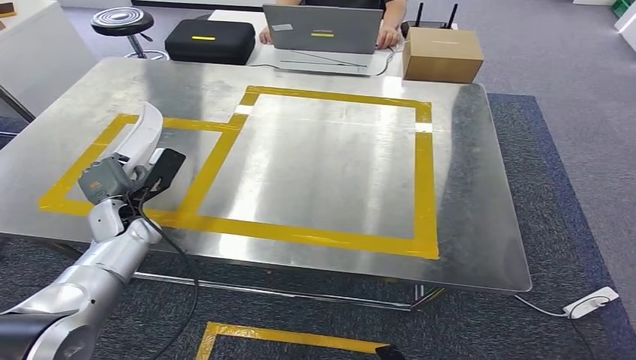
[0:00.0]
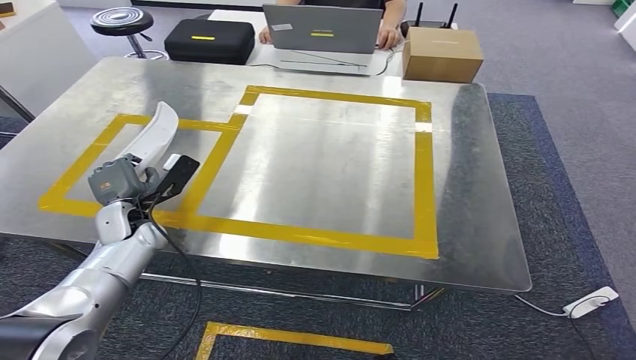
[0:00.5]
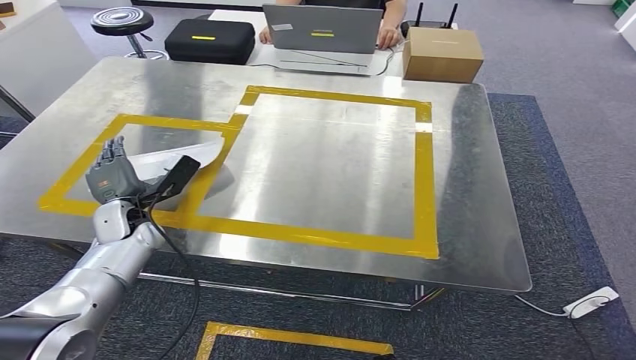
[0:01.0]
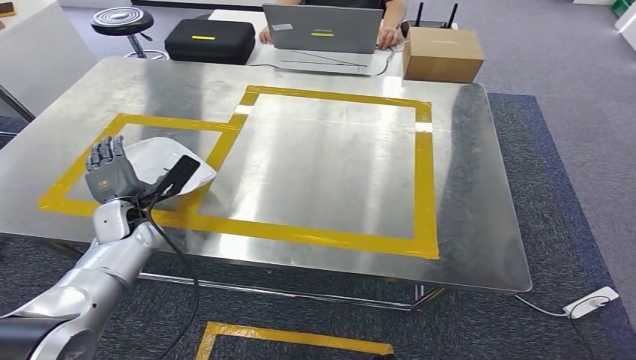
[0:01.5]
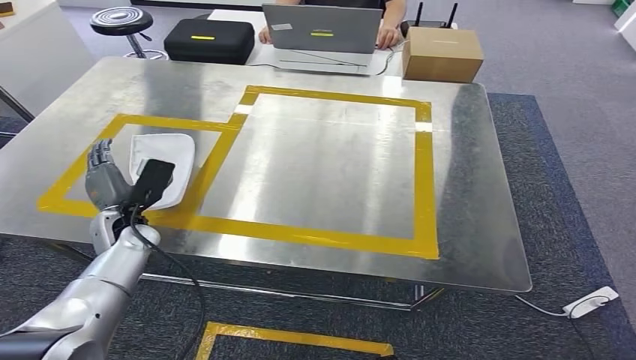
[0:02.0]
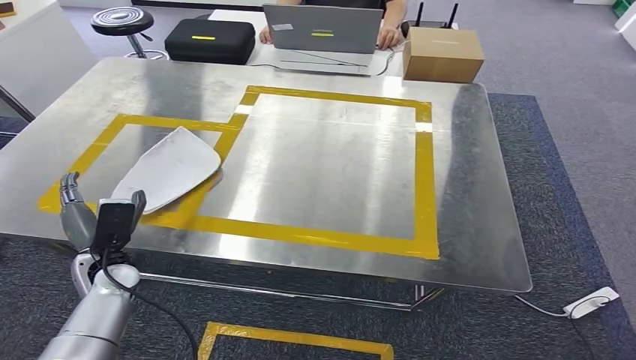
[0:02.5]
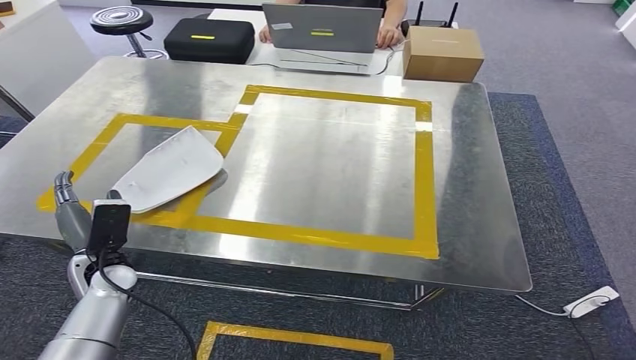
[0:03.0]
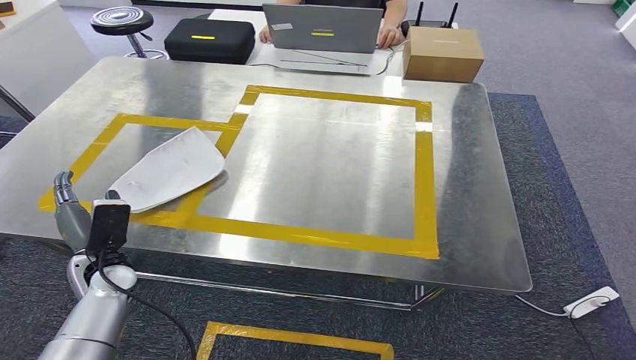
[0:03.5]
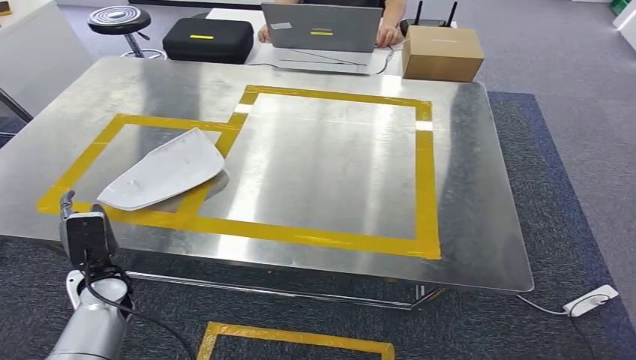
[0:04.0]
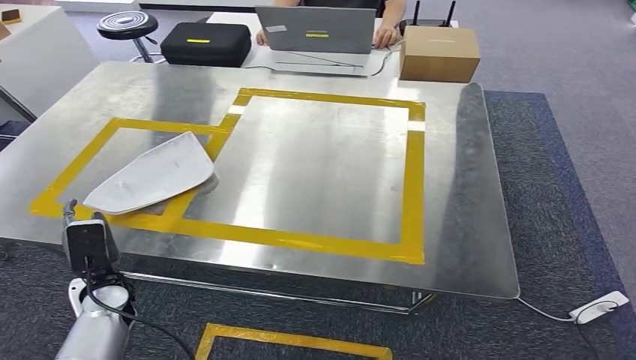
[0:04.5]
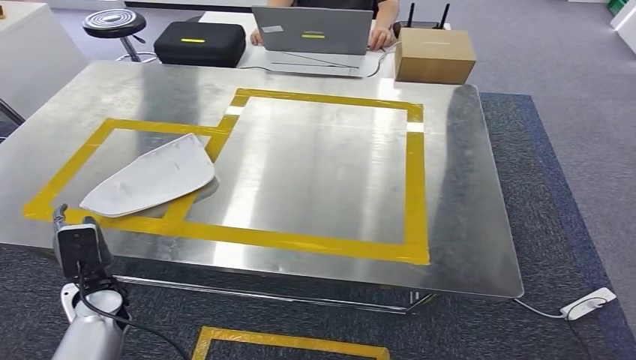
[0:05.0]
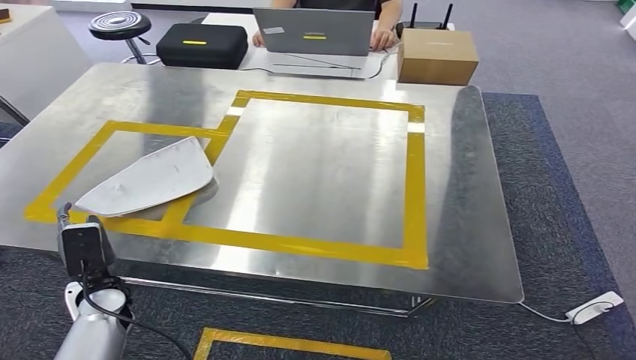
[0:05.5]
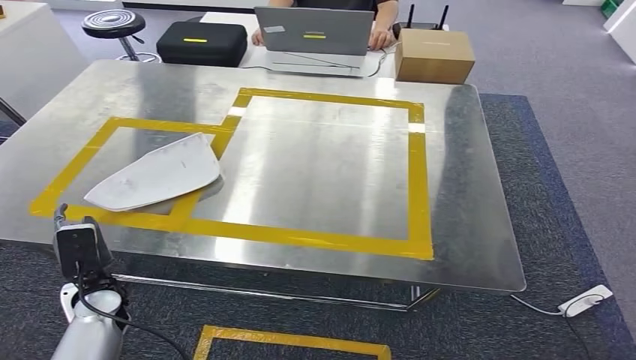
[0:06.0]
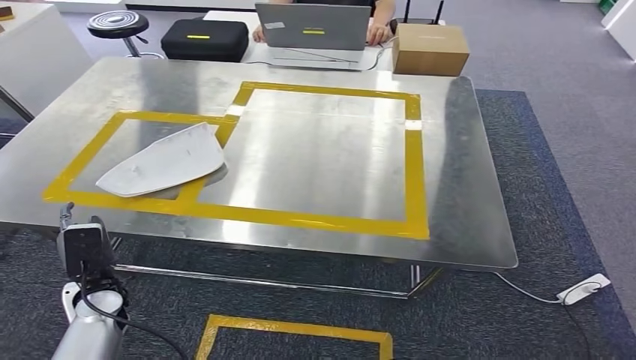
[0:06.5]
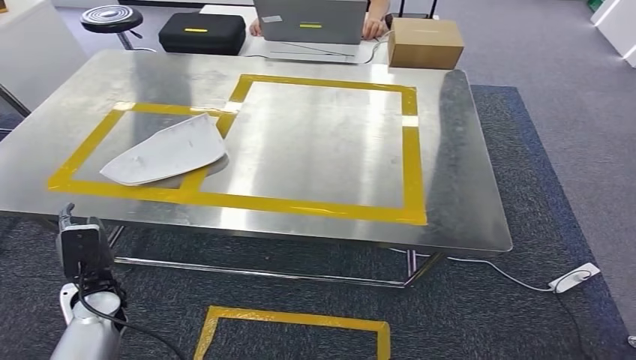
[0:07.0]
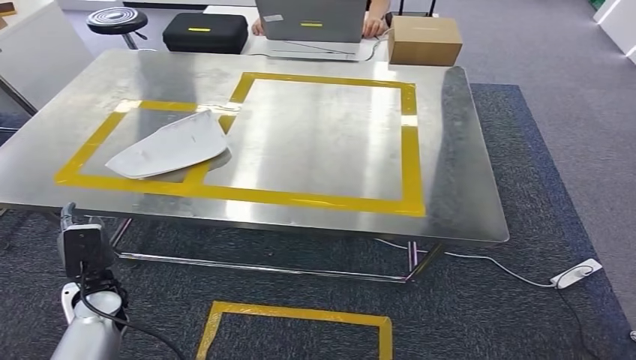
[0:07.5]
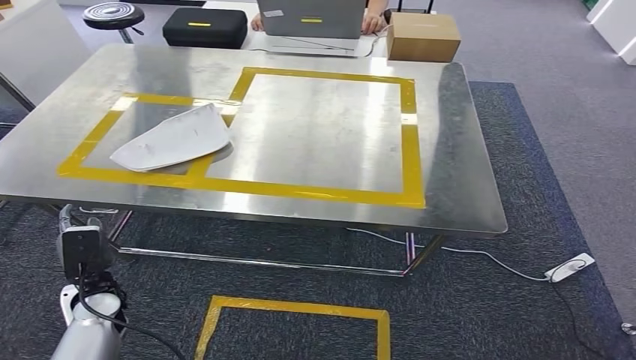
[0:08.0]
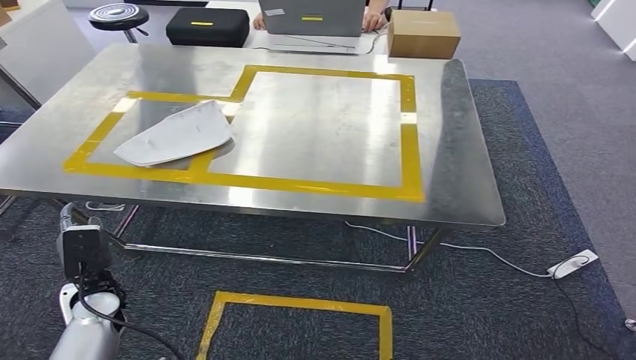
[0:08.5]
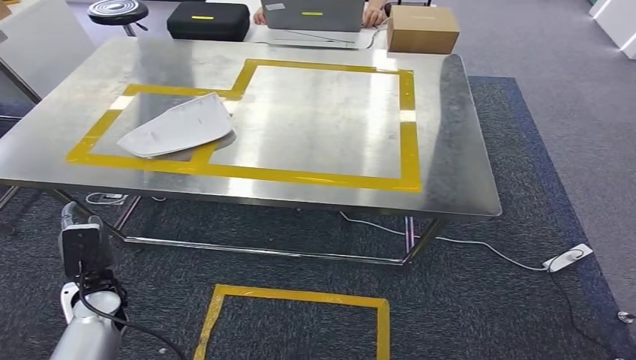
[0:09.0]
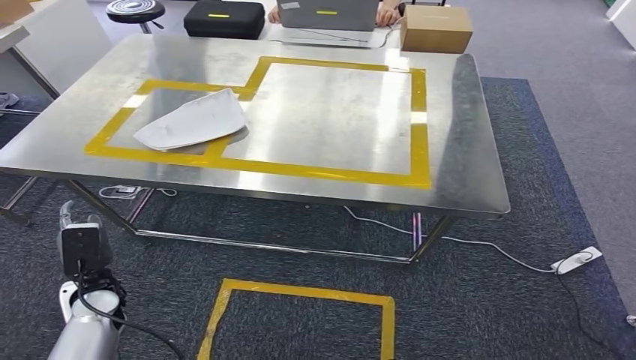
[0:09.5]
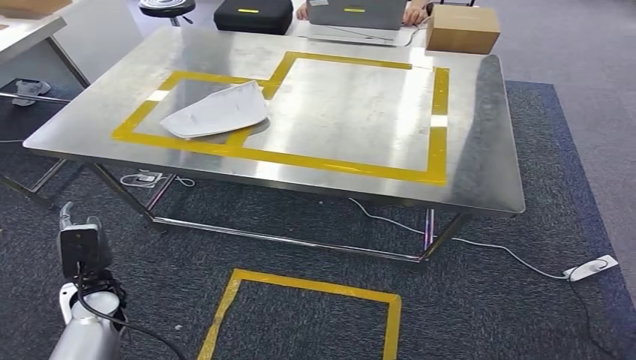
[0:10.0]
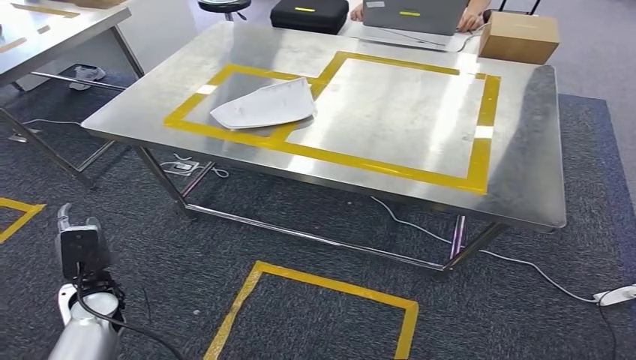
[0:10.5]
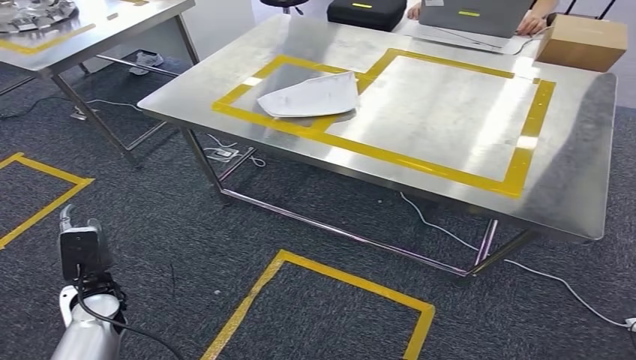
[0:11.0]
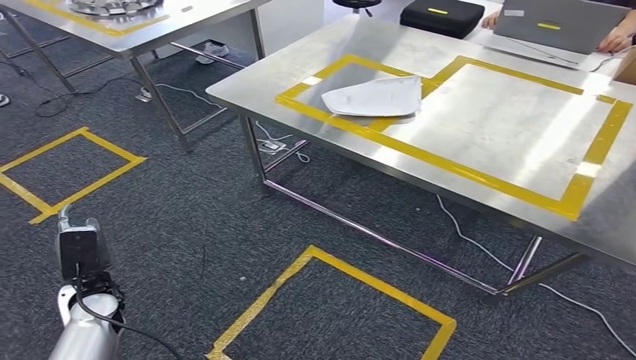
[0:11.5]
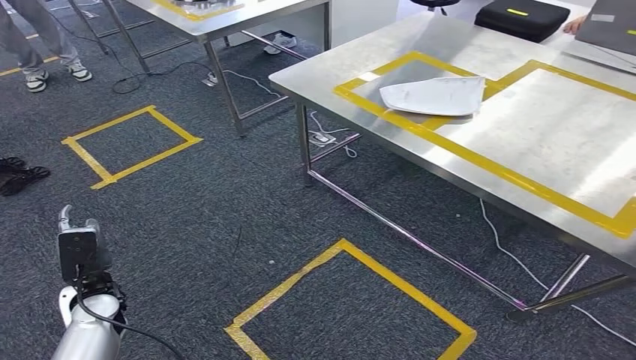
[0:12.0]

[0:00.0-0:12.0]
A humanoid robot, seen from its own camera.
Step, 0:00.0 to 0:03.0: Insert the small component into the corresponding slot on the workbench.
0:00.0 to 0:02.0: The hands make only small movements.
0:02.0 to 0:04.0: The left hand moves backward, some 10 cm.
0:04.0 to 0:06.0: There are only small adjustments of the hands.

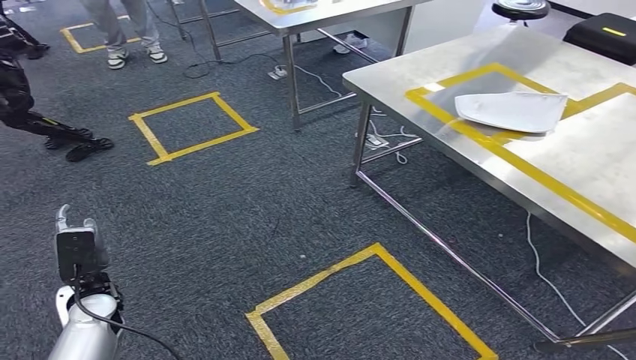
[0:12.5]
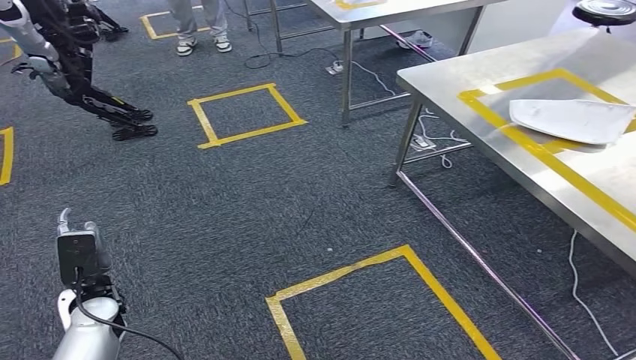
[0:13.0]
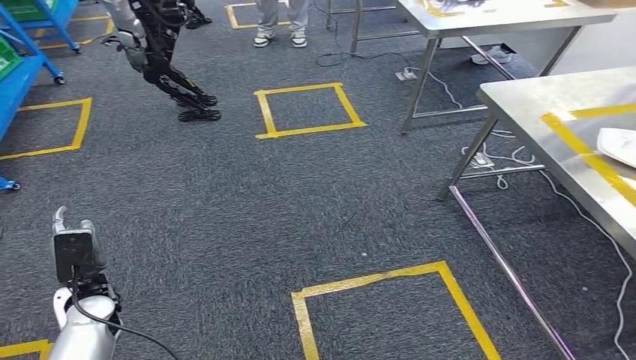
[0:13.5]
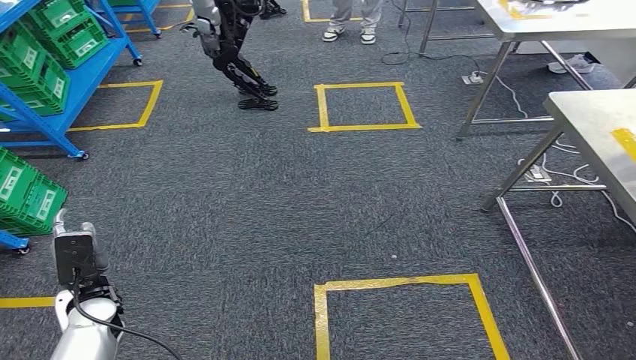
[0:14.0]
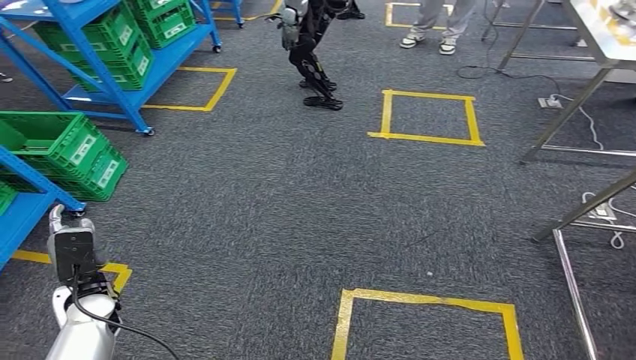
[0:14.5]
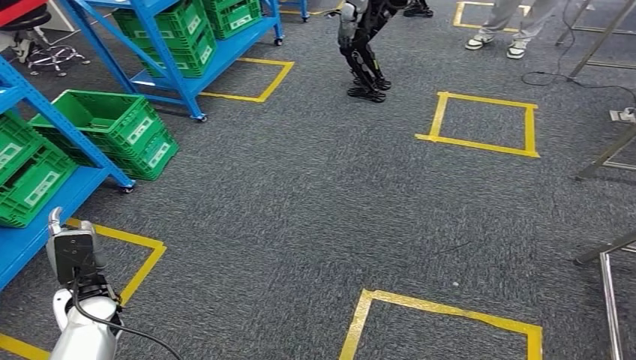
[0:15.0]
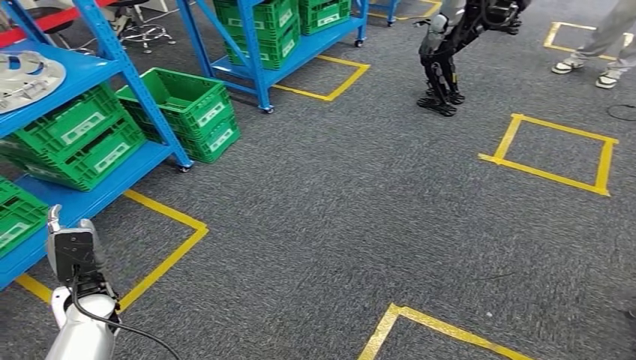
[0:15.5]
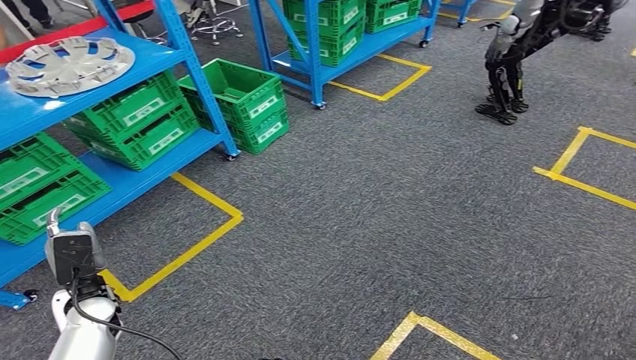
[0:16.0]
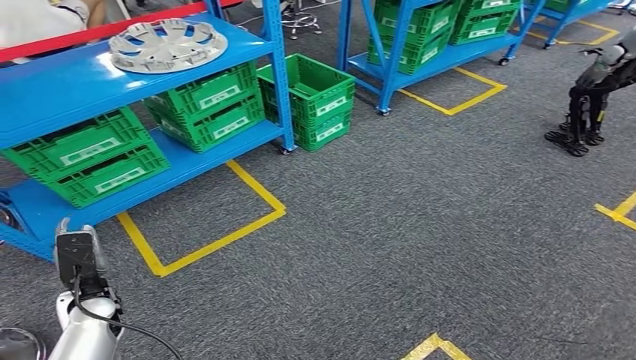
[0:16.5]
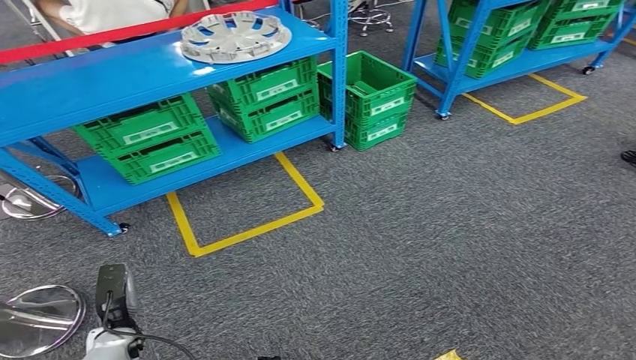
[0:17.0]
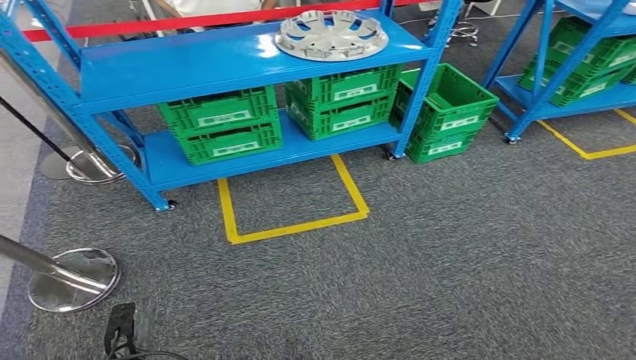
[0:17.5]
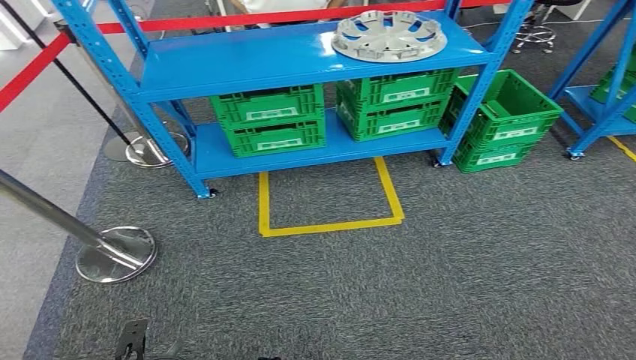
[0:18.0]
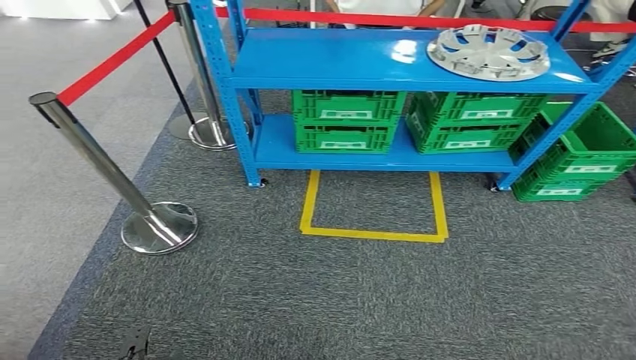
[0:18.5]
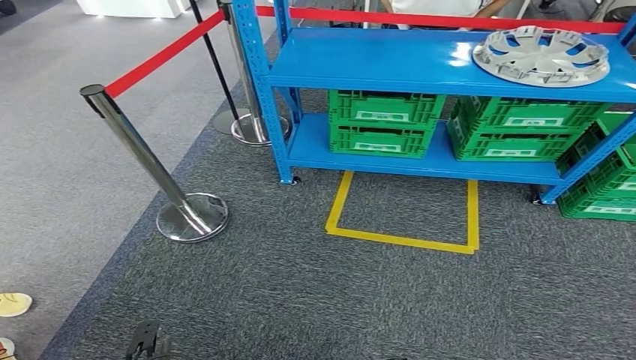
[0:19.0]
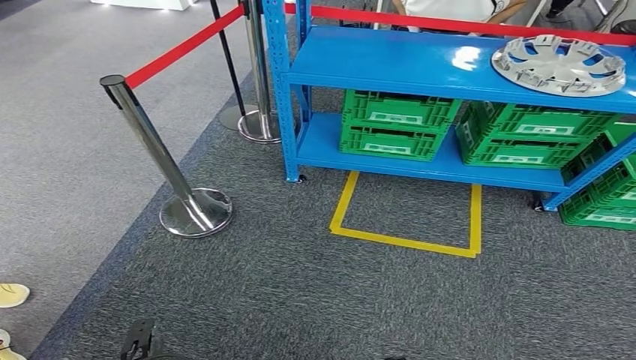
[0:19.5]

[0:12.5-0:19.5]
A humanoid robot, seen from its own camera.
Step, 0:12.5 to 0:19.5: Return to the initial position at the workbench.
